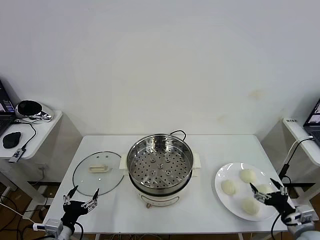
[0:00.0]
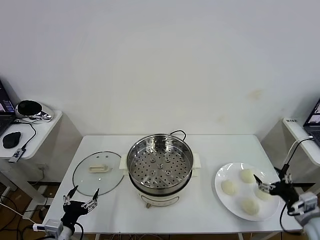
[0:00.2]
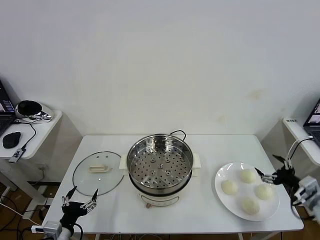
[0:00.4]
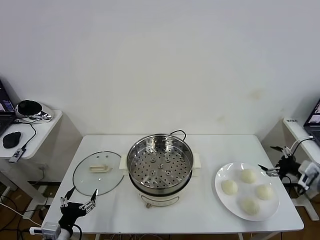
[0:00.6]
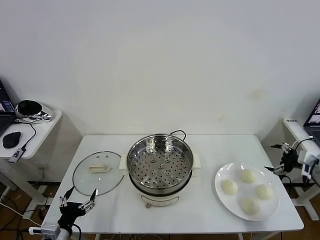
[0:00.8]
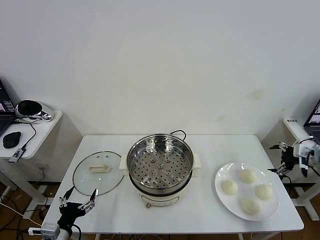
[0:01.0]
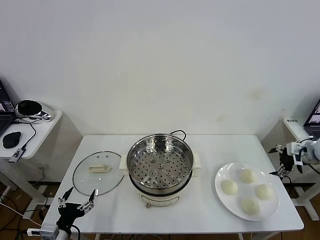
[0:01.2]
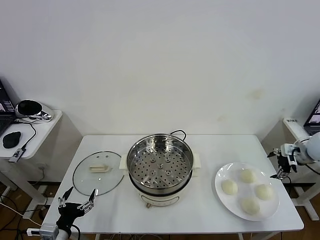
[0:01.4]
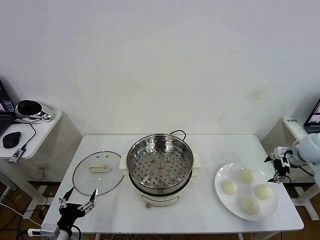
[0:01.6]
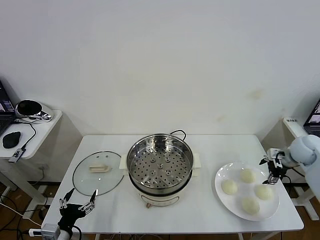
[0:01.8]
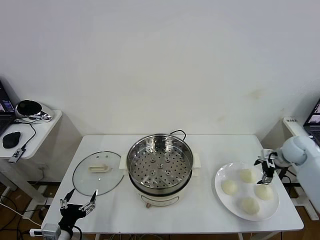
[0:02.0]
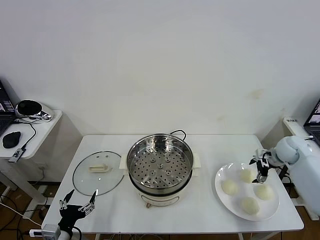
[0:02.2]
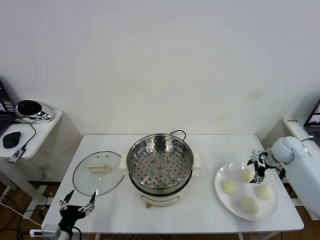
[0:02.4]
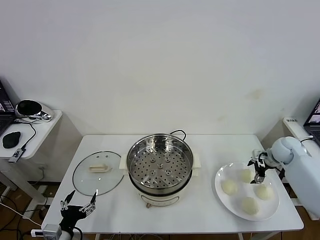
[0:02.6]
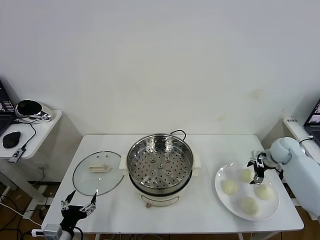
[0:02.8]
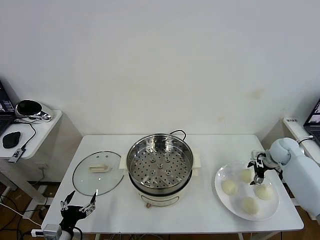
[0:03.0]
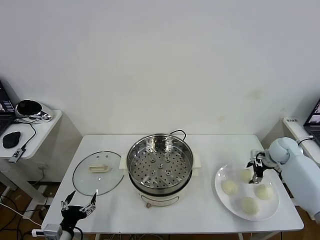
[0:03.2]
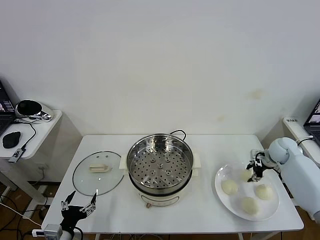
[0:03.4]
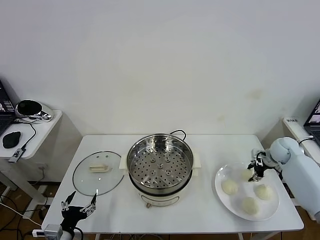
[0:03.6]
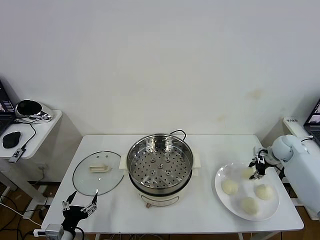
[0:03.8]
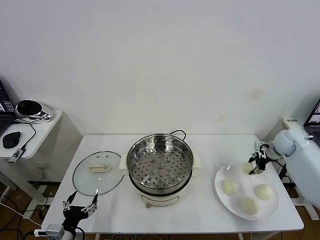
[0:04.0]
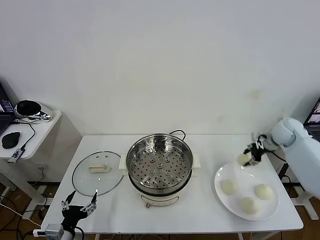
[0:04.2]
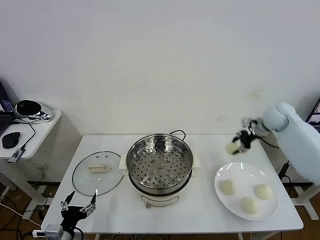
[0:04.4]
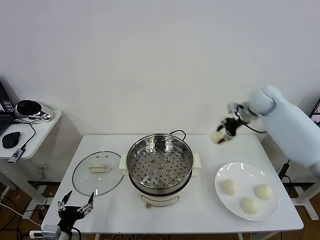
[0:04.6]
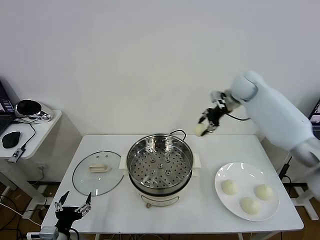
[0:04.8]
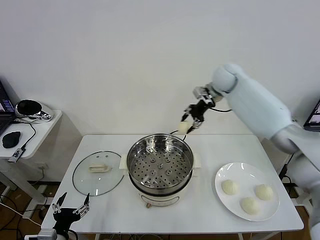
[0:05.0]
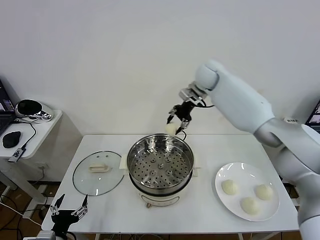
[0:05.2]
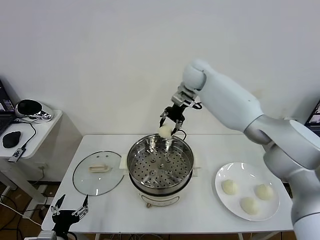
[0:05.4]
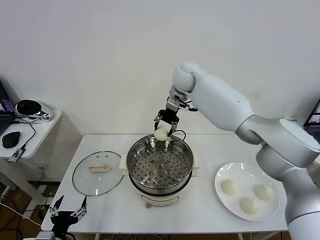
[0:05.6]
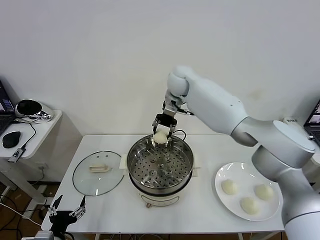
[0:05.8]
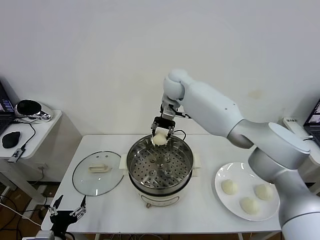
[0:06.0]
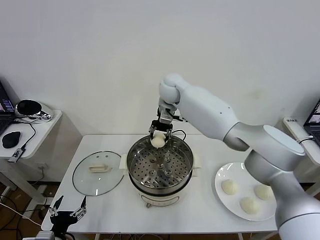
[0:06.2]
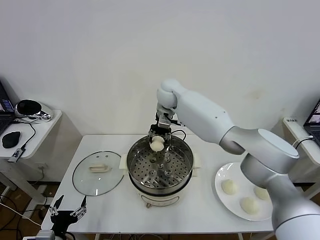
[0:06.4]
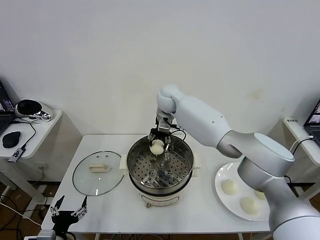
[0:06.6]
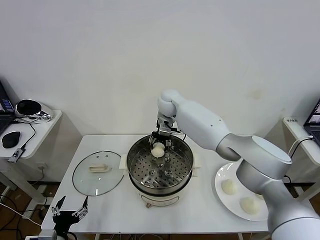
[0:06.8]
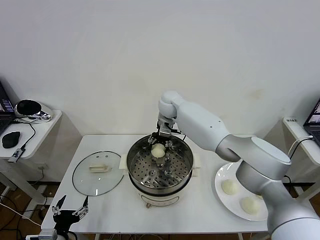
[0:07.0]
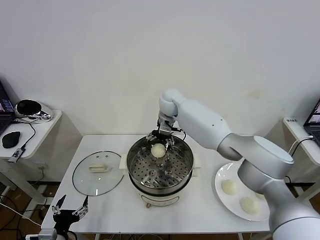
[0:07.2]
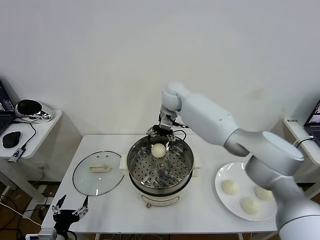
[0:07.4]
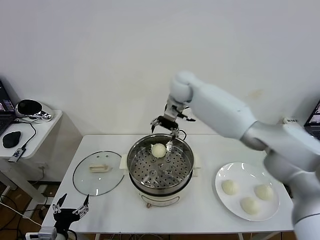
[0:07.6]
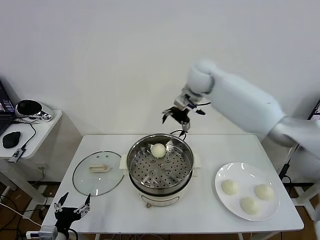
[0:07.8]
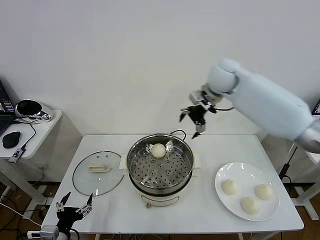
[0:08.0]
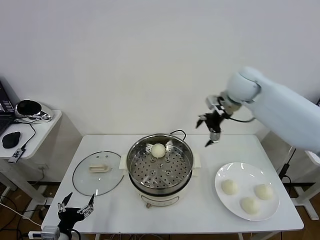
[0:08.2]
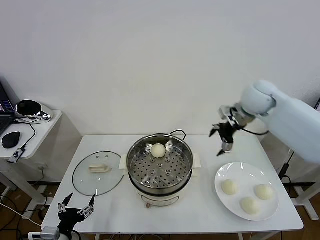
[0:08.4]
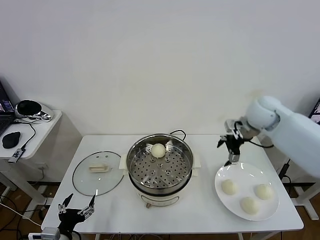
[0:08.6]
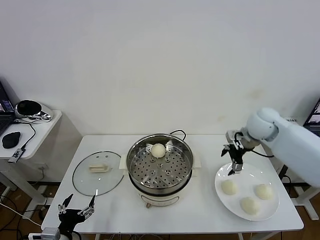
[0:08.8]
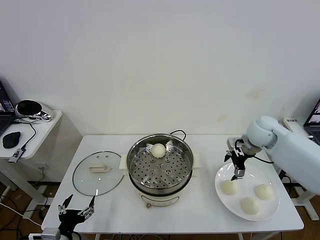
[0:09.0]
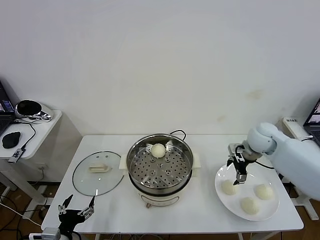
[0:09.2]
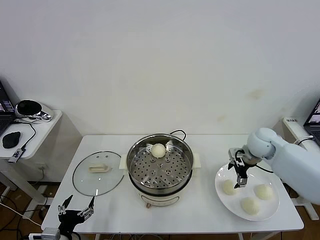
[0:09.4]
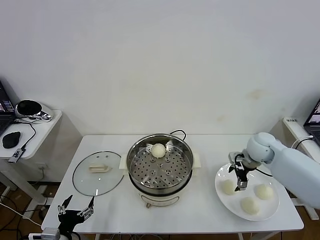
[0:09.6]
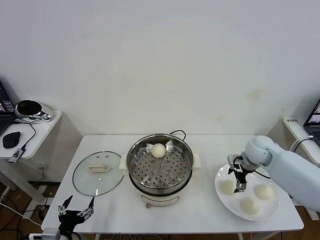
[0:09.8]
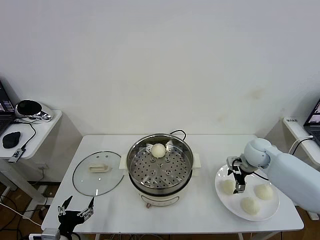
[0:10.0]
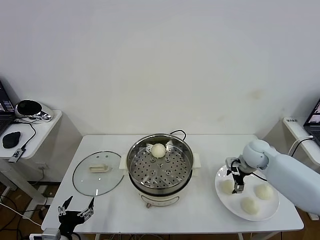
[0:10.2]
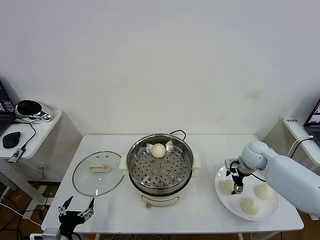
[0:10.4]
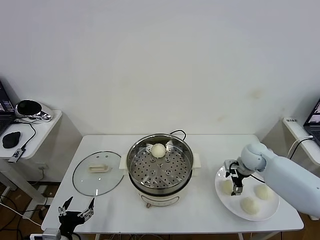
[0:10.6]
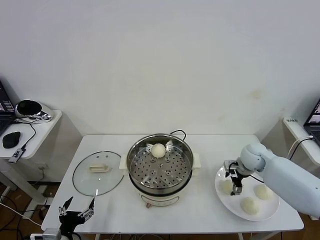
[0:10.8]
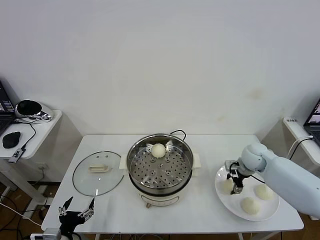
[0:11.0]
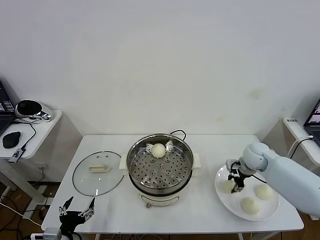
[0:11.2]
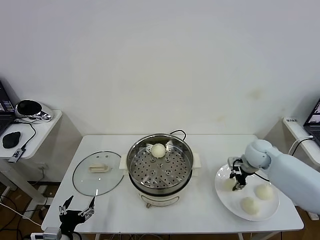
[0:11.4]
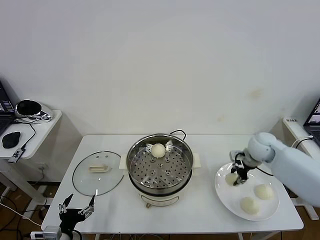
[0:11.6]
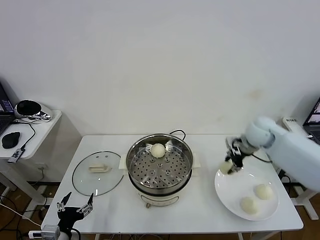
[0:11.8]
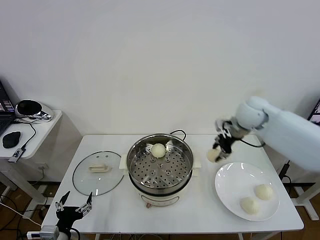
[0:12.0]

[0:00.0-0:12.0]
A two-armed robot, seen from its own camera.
Task of the whole recording: take steamed baozi put them in steamer then cover it.
Step, 0:00.0 to 0:03.2: Grasp the baozi in the plate with right gripper.
Step, 0:03.4 to 0:07.4: Place the baozi on the steamer with right gripper.
Step, 0:07.8 to 0:11.0: Grasp the baozi in the plate with right gripper.
0:01.6 to 0:03.0: The right gripper goes some 5 cm downward.
0:03.0 to 0:04.4: The right gripper shifts approximately 20 cm upward, to the left and forward, and closes.
0:04.4 to 0:06.0: The right gripper moves to the left, roughly 35 cm.
0:06.0 to 0:07.6: The right gripper shifts about 5 cm to the right, travels downward and back again, roughly 5 cm each way, and opens up.
0:07.6 to 0:09.0: The right gripper heads to the right, downward and backward, covering approximately 30 cm.
0:09.0 to 0:10.4: The right gripper is displaced downward by some 10 cm.
0:10.4 to 0:12.0: The right gripper goes approximately 20 cm upward and to the left, and closes up.

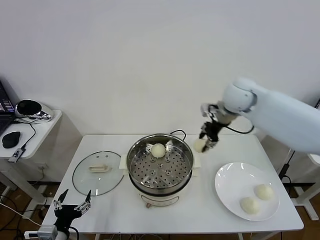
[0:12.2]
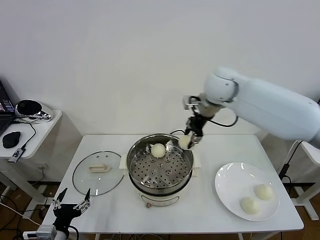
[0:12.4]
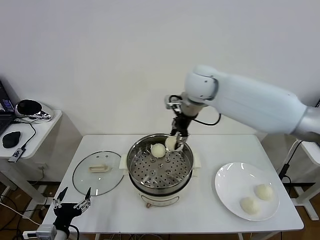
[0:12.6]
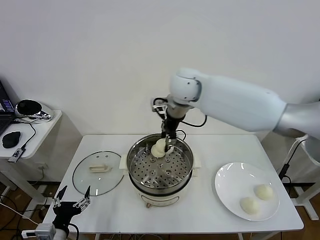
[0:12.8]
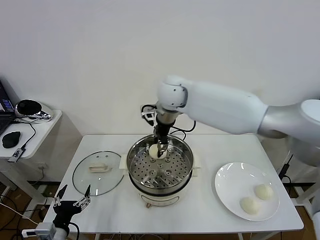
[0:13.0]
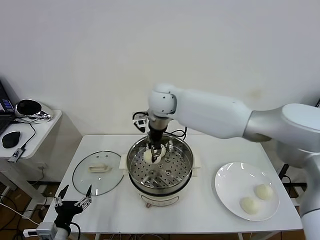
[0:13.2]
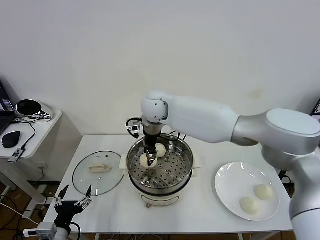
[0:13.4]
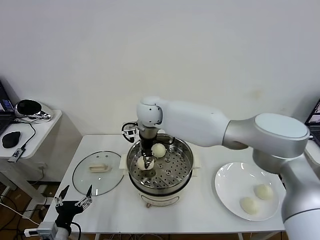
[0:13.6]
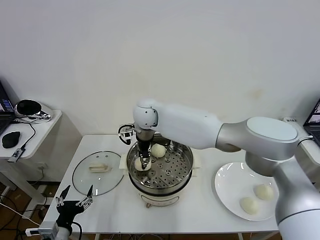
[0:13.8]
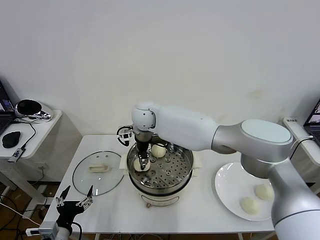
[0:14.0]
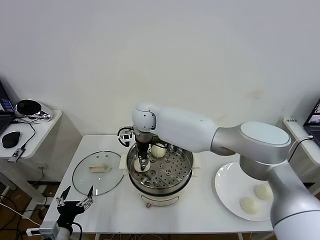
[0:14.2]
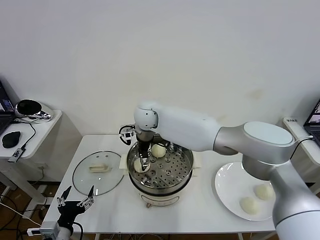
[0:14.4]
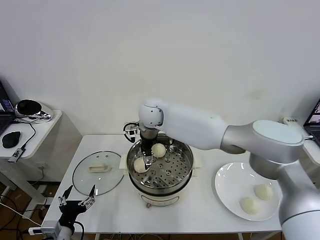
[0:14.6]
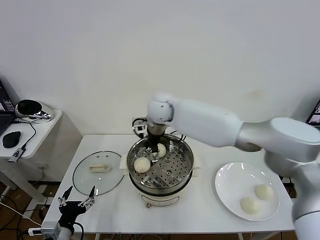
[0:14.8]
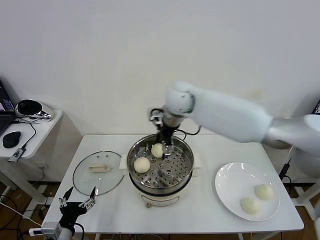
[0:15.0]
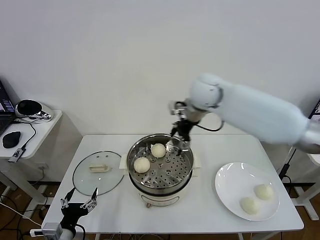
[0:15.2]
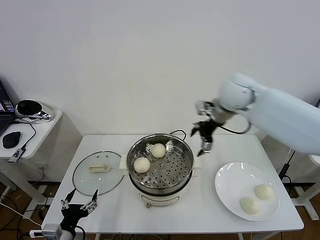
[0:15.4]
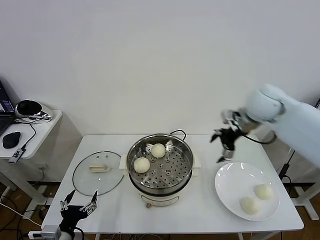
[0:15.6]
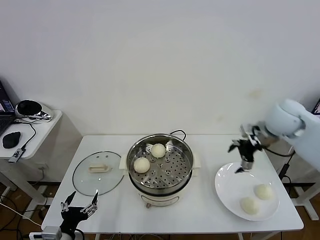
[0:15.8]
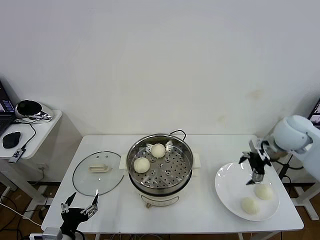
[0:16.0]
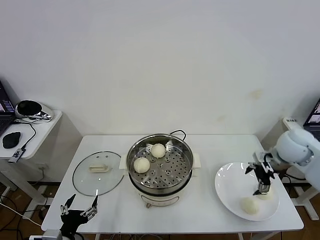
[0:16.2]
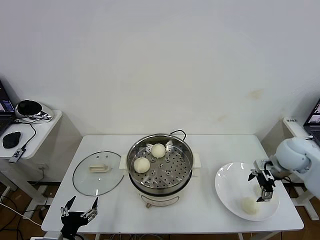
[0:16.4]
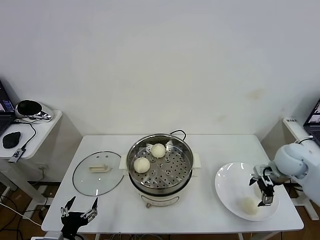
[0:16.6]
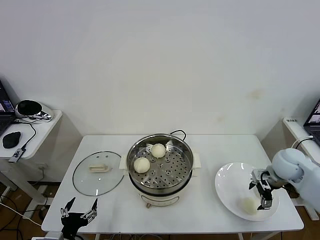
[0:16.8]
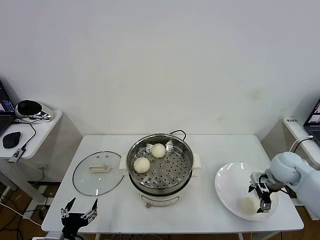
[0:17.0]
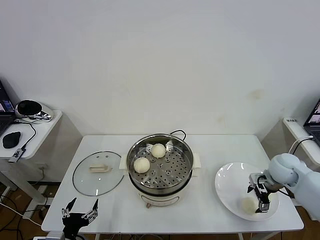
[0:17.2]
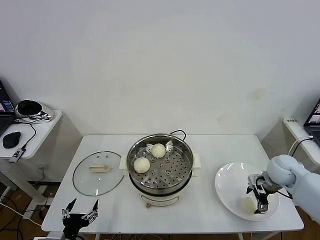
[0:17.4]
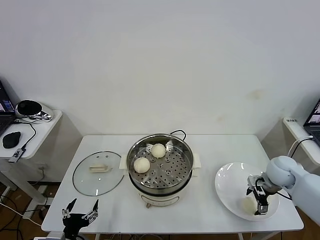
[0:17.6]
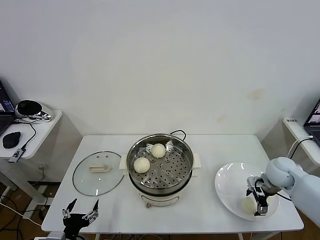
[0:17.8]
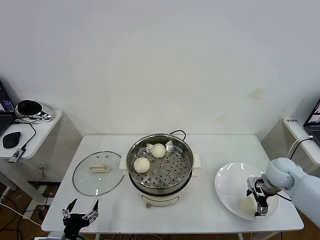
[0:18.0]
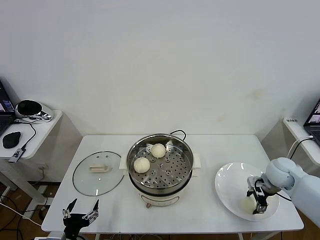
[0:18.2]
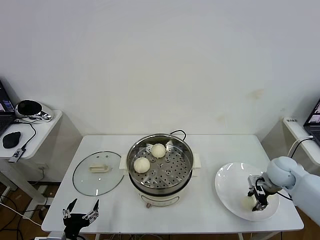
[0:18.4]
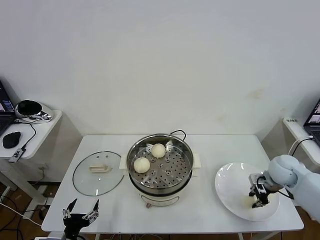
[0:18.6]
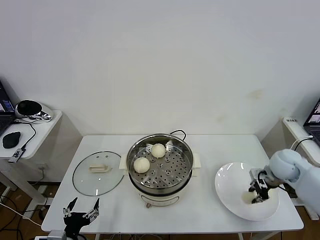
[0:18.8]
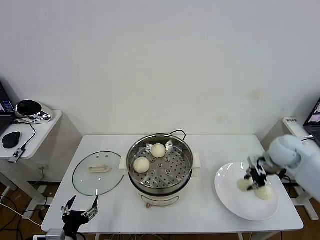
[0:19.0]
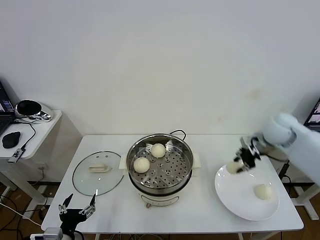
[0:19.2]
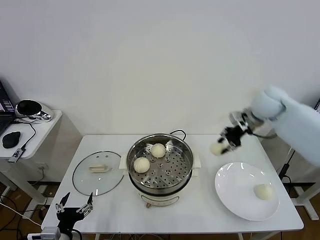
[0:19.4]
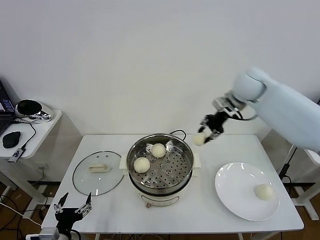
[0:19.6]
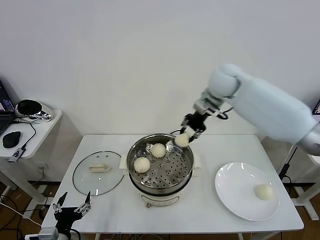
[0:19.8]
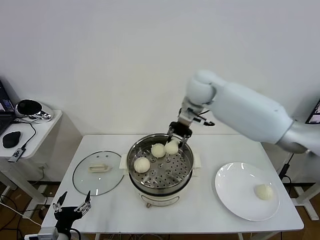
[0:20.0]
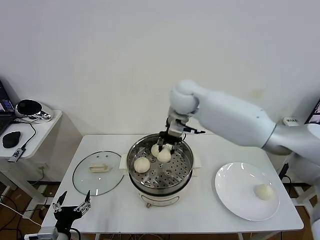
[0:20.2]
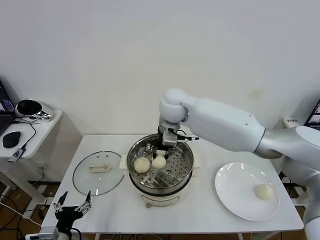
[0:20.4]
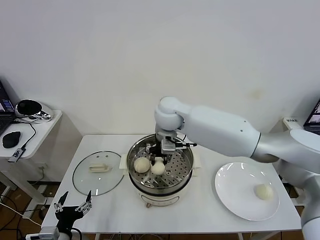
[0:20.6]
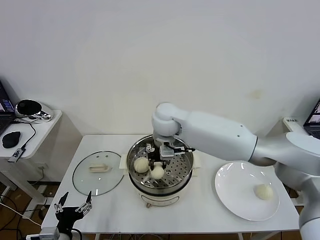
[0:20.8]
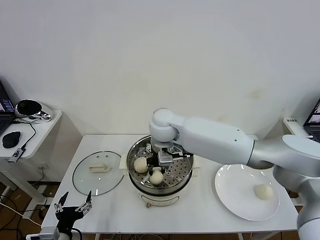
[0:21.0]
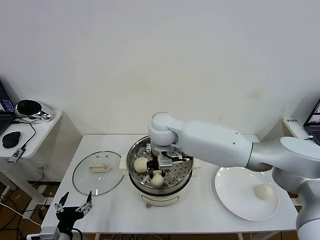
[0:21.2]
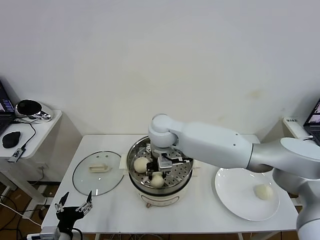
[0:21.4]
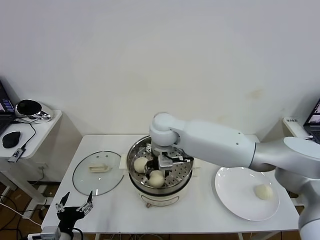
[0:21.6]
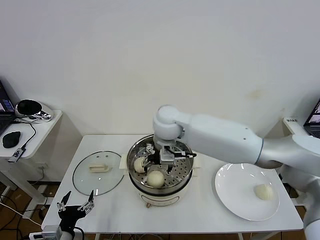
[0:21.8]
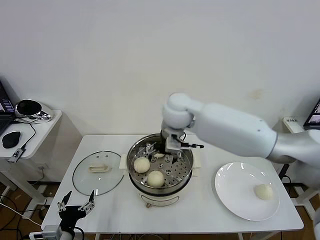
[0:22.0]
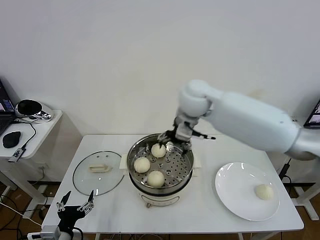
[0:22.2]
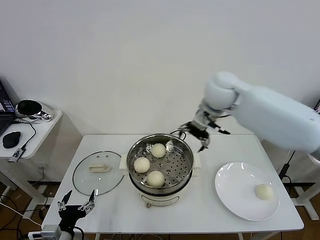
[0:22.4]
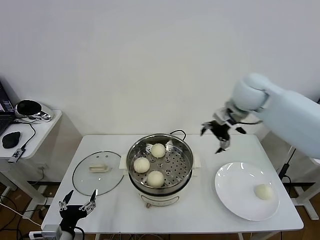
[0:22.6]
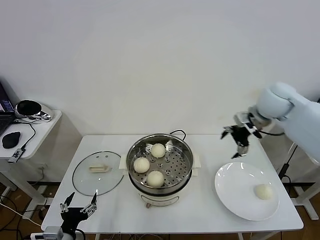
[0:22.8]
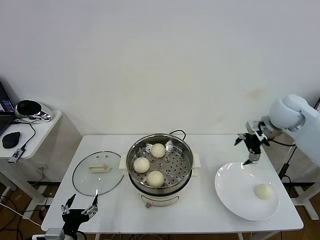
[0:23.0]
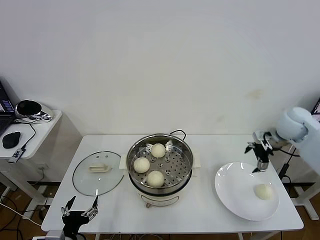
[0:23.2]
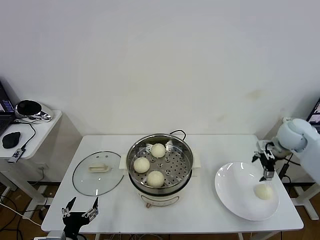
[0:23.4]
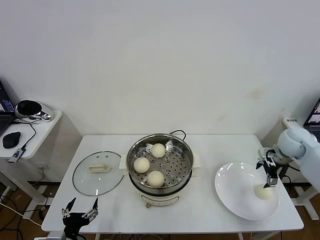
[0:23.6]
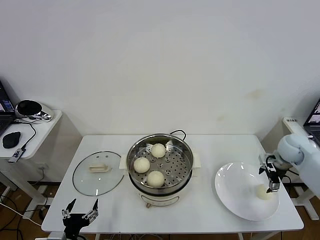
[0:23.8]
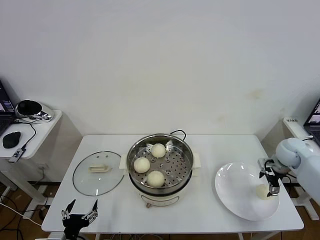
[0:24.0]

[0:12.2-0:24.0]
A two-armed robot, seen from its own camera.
Task of the whole recording: take steamed baozi put them in steamer then cover it.
Step, 0:12.2 to 0:14.8: Place the baozi on the steamer with right gripper.
Step, 0:15.0 to 0:18.4: Grasp the baozi in the plate with right gripper.
Step, 0:18.6 to 0:22.0: Place the baozi on the steamer with right gripper.
0:12.2 to 0:13.6: The right gripper shifts roughly 25 cm to the left.
0:13.6 to 0:15.2: The right gripper shifts approximately 25 cm to the right and upward, and opens its fingers.
0:15.2 to 0:16.6: The right gripper is displaced to the right, downward and backward by approximately 35 cm.
0:16.6 to 0:18.2: The right gripper travels downward by some 5 cm, and closes up.
0:18.2 to 0:19.6: The right gripper is displaced upward, to the left and forward by roughly 35 cm, and closes its fingers.
0:19.6 to 0:21.0: The right gripper moves to the left and downward, roughly 25 cm.
0:21.0 to 0:22.6: The right gripper goes approximately 25 cm to the right, and opens its fingers.
0:22.6 to 0:24.0: The right gripper goes some 30 cm downward and to the right.
